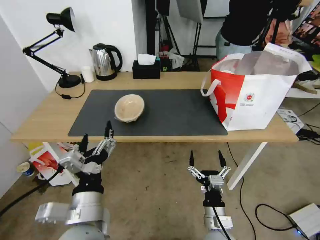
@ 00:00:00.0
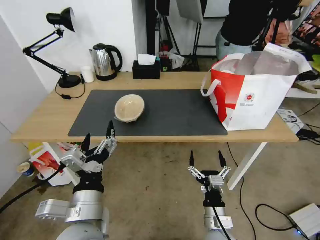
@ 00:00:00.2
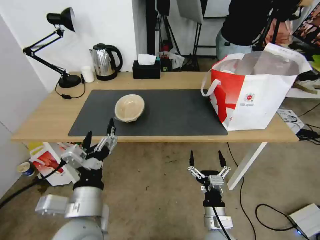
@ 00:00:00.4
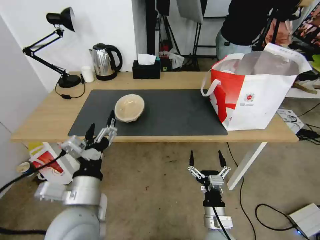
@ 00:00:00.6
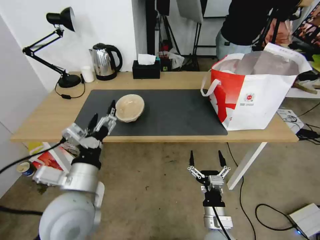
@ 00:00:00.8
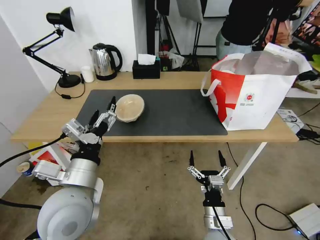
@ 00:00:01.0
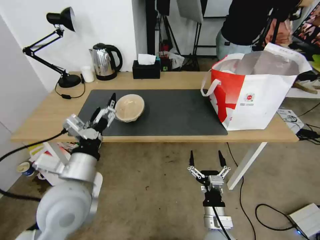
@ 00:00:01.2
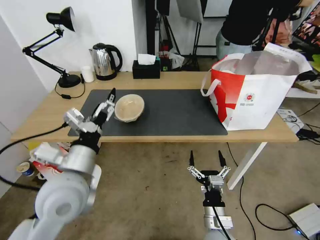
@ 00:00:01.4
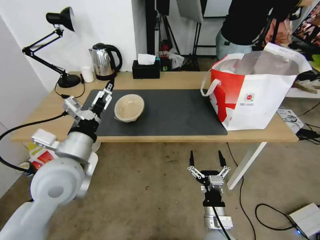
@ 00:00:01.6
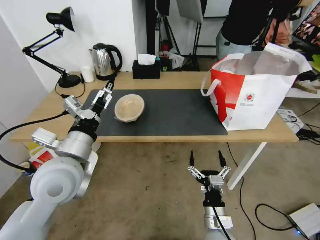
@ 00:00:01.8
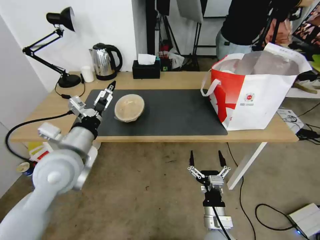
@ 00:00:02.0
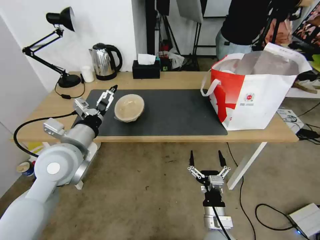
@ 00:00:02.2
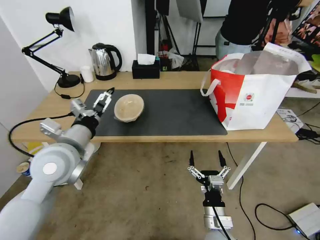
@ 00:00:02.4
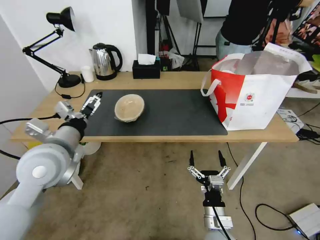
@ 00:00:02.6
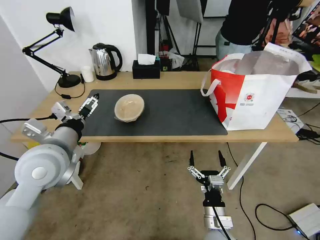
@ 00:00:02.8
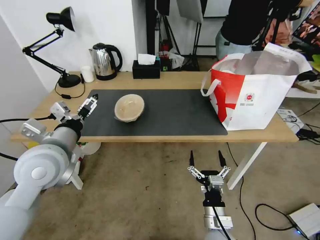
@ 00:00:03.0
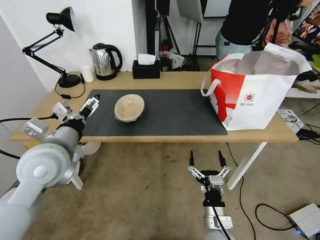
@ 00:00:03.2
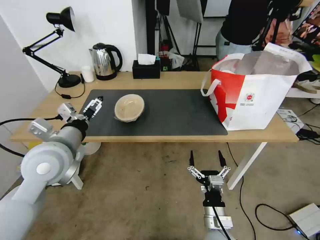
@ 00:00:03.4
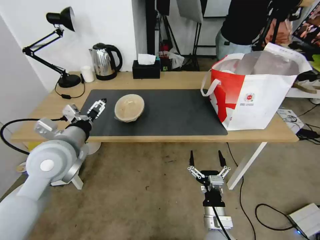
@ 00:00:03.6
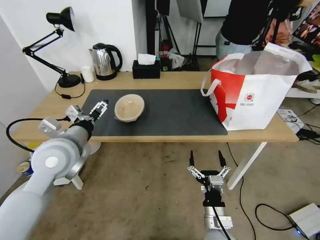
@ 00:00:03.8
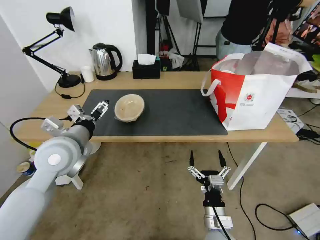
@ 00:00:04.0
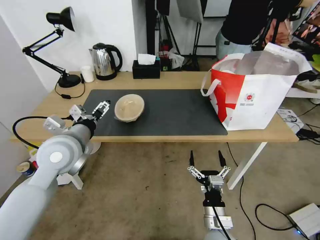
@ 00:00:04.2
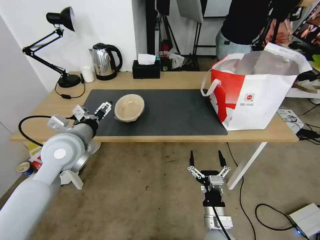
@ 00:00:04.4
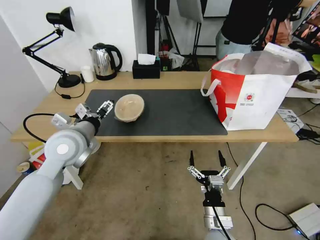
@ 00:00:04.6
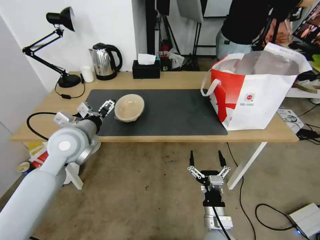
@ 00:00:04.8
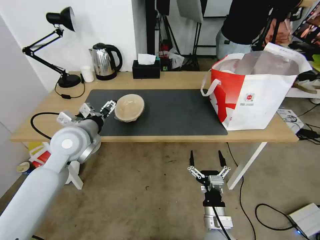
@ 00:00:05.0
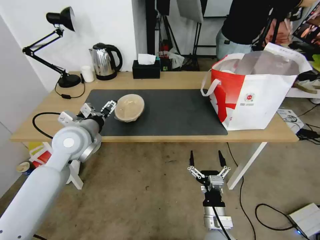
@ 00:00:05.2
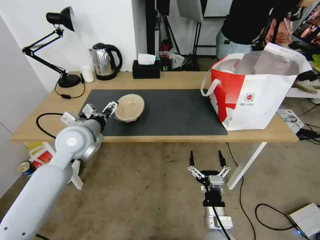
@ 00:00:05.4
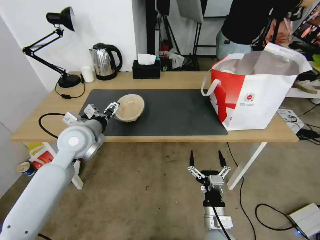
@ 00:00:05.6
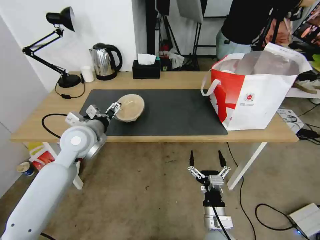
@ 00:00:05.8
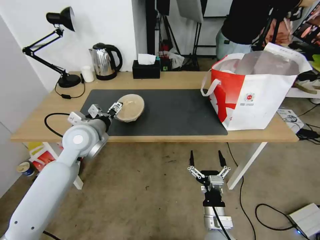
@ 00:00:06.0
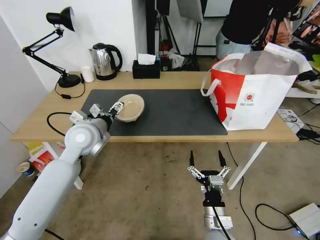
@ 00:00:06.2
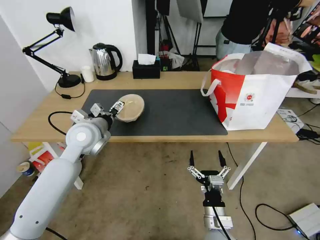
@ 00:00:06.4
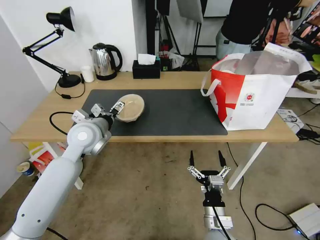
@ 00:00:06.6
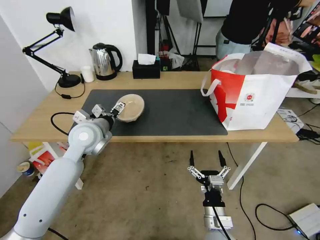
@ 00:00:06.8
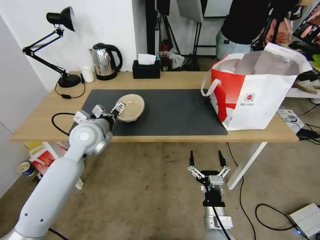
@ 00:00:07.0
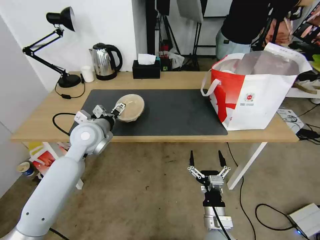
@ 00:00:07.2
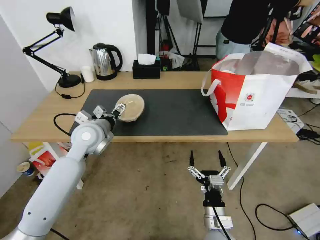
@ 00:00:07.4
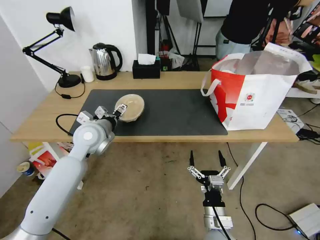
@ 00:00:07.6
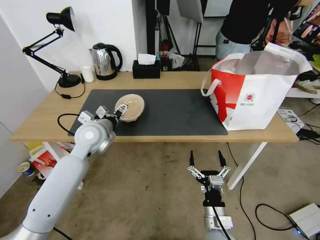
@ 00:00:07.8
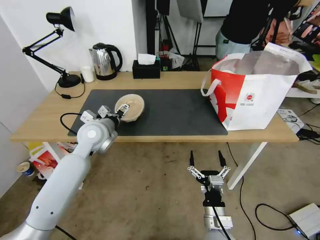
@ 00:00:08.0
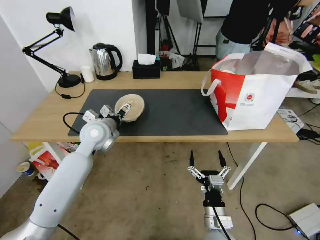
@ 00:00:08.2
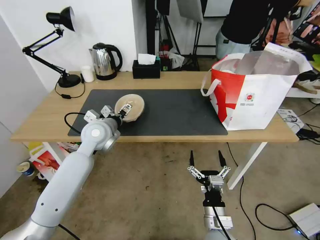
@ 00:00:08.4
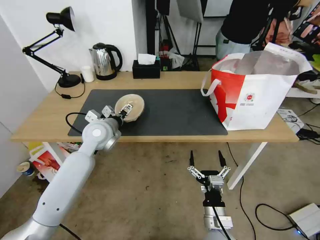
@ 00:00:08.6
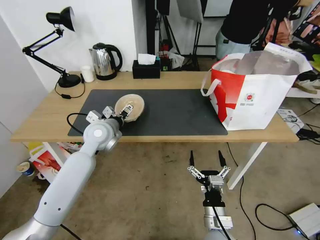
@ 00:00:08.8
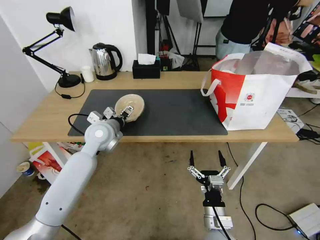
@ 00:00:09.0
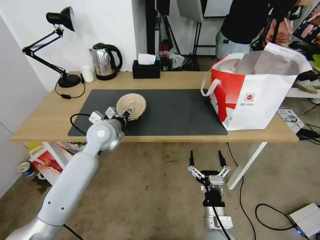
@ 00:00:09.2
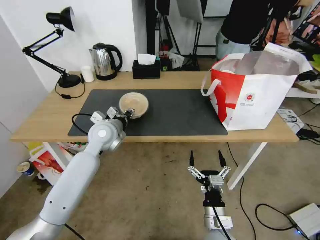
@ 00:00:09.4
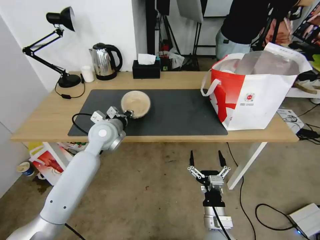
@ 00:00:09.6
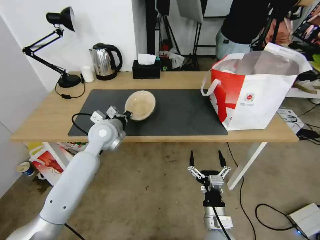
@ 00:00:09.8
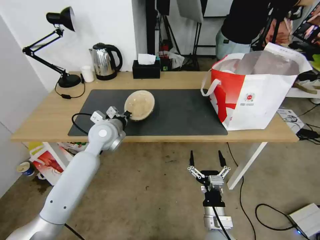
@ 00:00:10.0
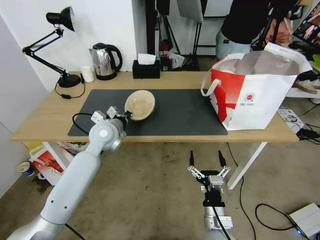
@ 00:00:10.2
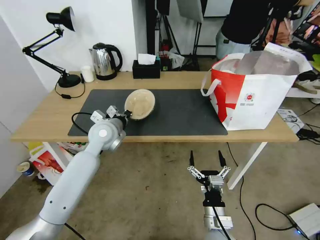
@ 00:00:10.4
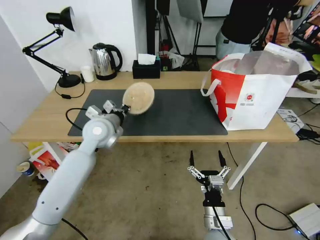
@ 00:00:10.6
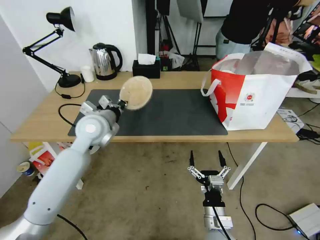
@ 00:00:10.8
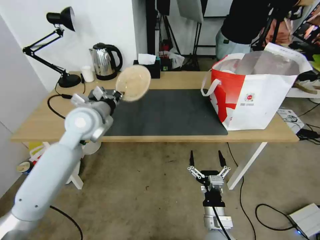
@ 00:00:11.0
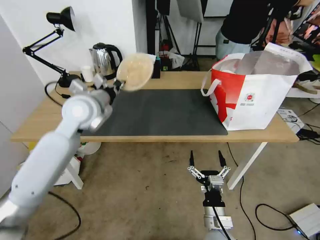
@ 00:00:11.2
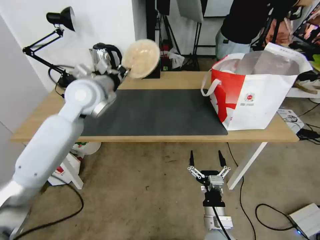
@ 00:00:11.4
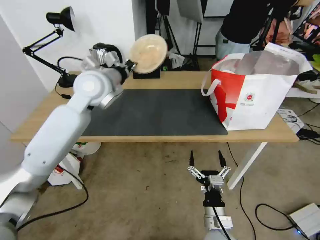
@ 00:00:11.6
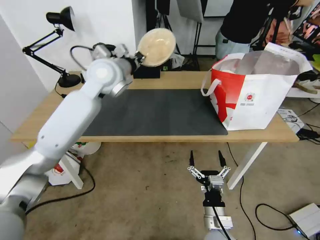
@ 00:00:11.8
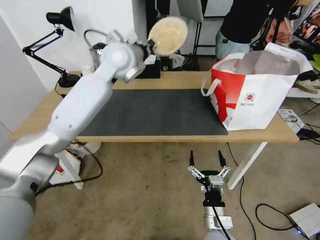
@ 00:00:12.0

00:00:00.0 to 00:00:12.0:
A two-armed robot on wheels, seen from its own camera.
Task of the whole recording: Pick up the trash from the table and place it into the takeout bag.
00:00:00.0 to 00:00:01.6: The left gripper moves forward, upward and to the left, about 15 cm.
00:00:01.6 to 00:00:03.0: The left gripper shifts by some 5 cm.
00:00:03.0 to 00:00:04.4: The left gripper shifts about 5 cm forward.
00:00:04.4 to 00:00:06.0: The left gripper is displaced forward by roughly 5 cm.
00:00:06.0 to 00:00:07.6: The grippers stay close to where they were, moving slightly.
00:00:07.6 to 00:00:09.0: There are only small adjustments of the grippers.
00:00:09.0 to 00:00:10.4: The left gripper closes up.
00:00:10.4 to 00:00:12.0: The left gripper is displaced upward and forward by approximately 25 cm.

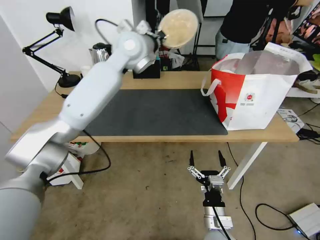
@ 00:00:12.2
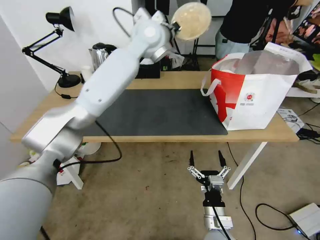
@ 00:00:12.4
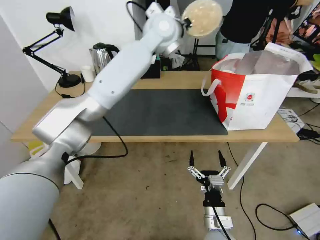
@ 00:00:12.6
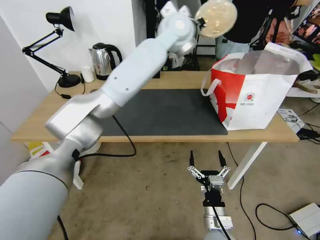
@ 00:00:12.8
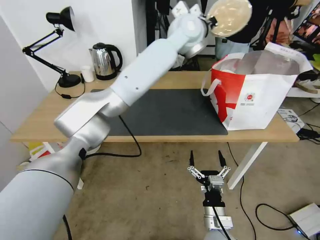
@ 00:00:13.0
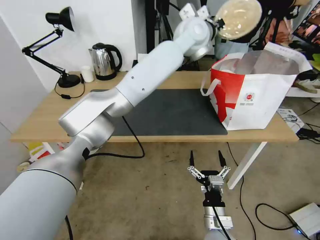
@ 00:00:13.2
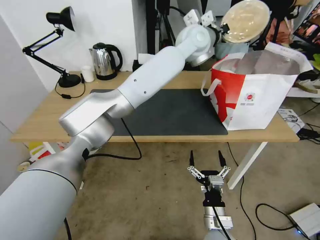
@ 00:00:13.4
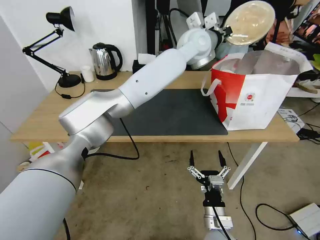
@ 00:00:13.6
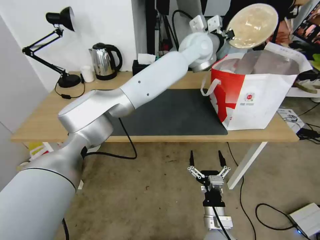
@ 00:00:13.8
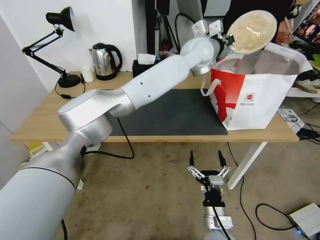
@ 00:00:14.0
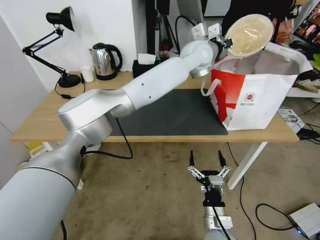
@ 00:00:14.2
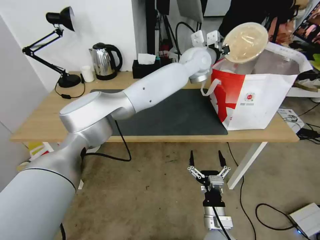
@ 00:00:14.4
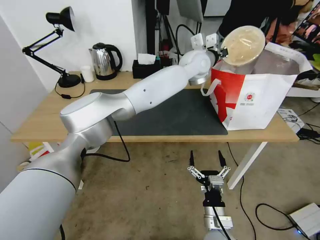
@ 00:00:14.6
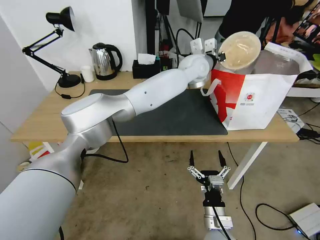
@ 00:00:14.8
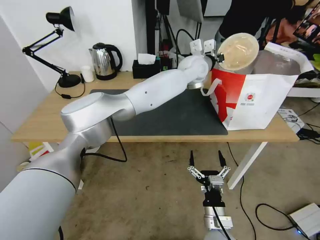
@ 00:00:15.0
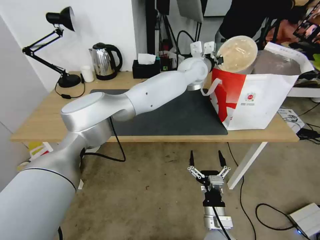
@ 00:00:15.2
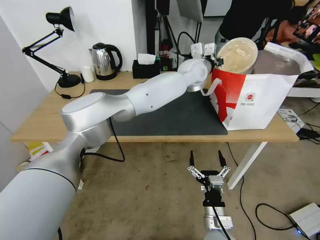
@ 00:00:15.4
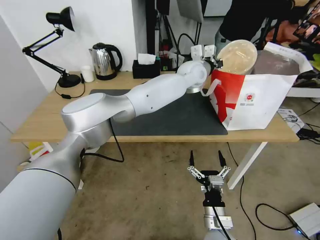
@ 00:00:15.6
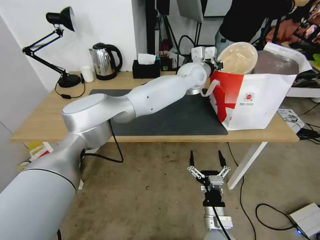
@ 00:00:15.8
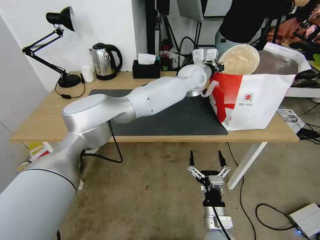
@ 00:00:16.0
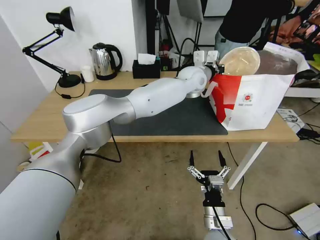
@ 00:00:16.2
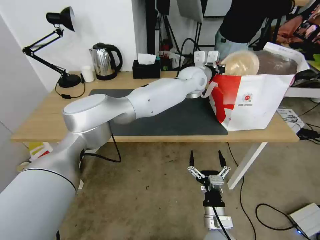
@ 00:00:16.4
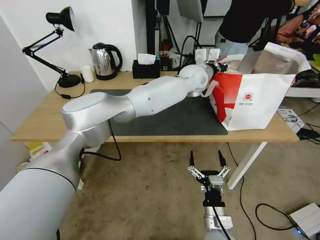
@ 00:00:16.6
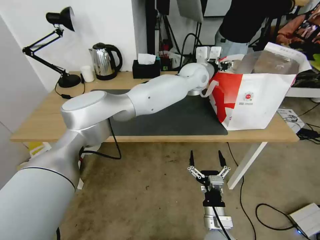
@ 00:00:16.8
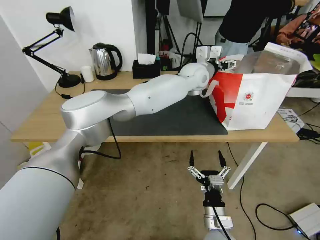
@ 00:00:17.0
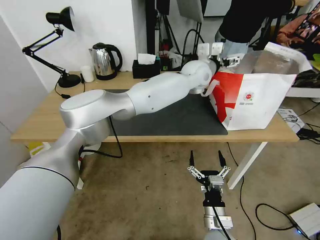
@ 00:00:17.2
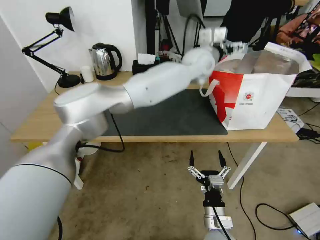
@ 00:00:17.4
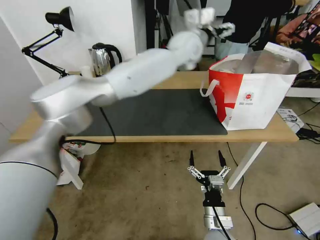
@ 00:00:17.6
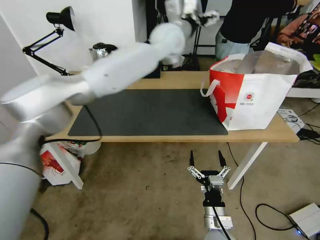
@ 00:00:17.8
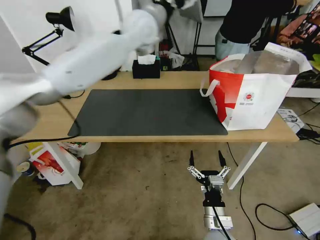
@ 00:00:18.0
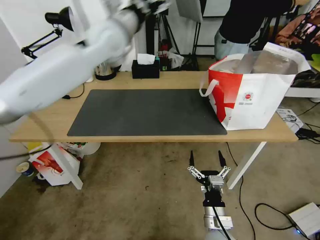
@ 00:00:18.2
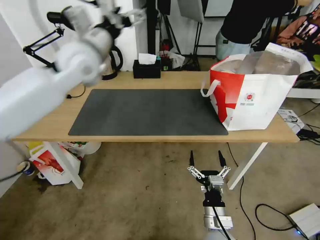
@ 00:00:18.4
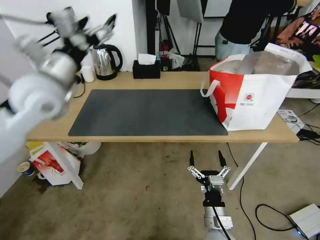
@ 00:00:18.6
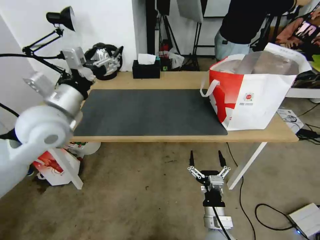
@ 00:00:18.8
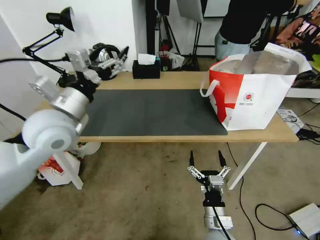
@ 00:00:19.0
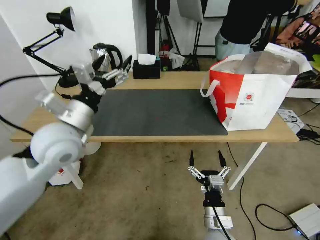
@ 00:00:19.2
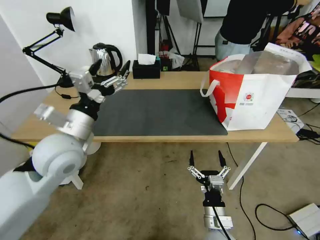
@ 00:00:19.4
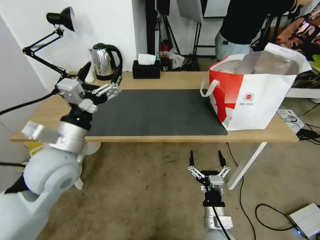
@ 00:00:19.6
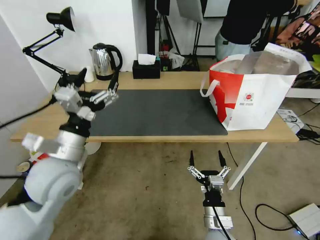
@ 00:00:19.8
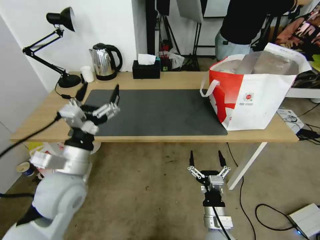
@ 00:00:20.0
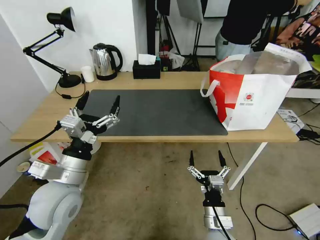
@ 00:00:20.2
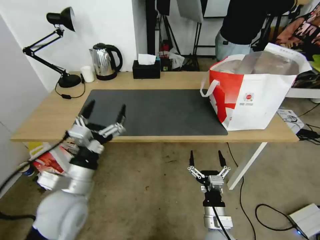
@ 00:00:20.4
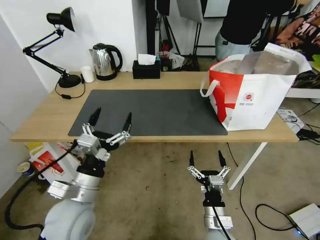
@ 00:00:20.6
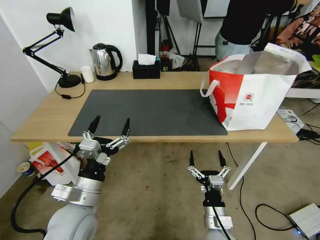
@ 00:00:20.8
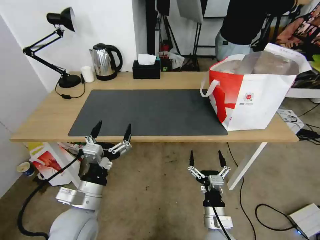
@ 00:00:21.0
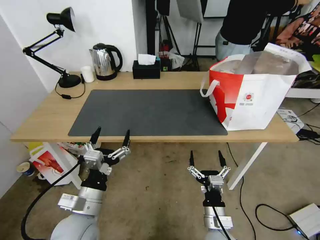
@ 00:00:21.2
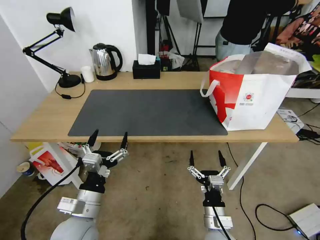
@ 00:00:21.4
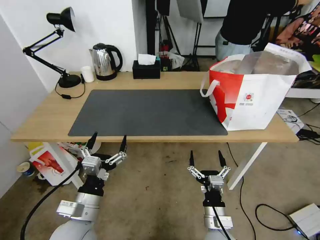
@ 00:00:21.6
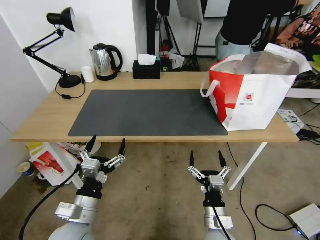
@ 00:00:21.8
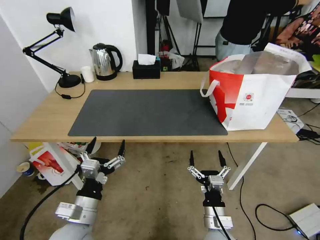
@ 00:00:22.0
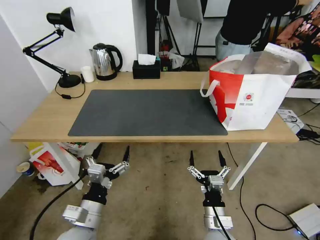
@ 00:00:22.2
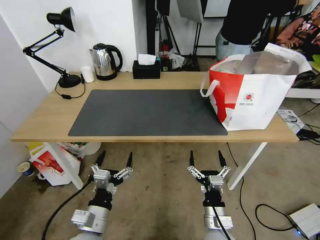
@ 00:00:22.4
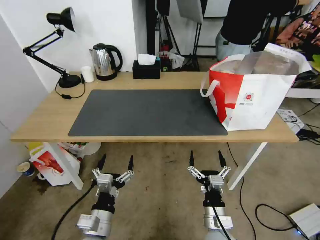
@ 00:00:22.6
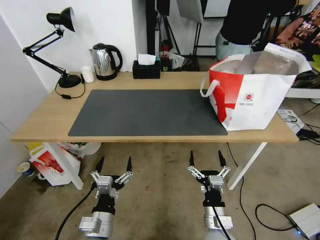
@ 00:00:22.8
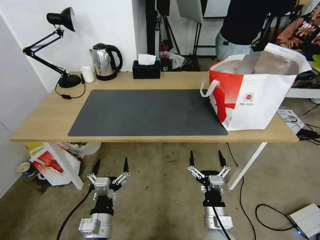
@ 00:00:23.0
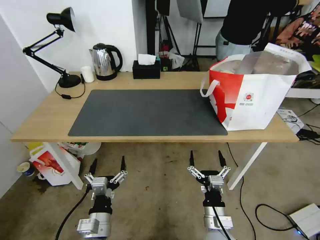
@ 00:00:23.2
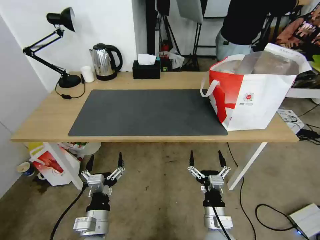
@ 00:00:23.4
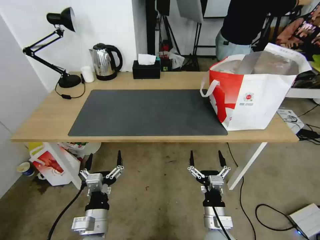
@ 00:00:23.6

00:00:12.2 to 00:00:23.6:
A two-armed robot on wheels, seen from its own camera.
Task of the whole recording: Pick up the trash from the table and place it into the takeout bag.
00:00:12.2 to 00:00:13.6: The left gripper moves to the right, about 20 cm.
00:00:13.6 to 00:00:15.0: The left gripper travels downward by approximately 10 cm.
00:00:15.0 to 00:00:16.4: The grippers move only a little.
00:00:16.4 to 00:00:17.8: The left gripper shifts about 20 cm upward and to the left, and opens up.
00:00:17.8 to 00:00:19.4: The left gripper is displaced backward, to the left and downward by approximately 40 cm.
00:00:19.4 to 00:00:20.8: The left gripper heads downward and backward, covering approximately 15 cm.
00:00:20.8 to 00:00:22.2: The left gripper shifts some 5 cm downward.
